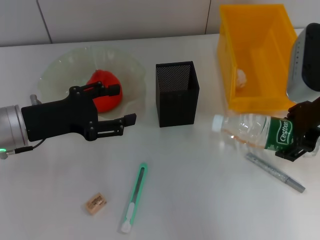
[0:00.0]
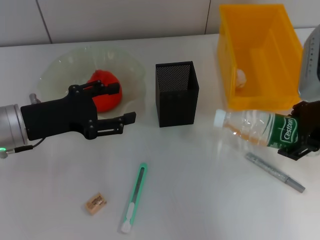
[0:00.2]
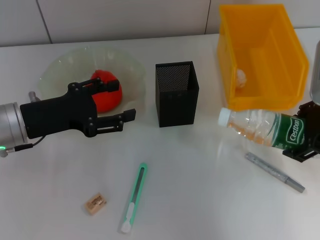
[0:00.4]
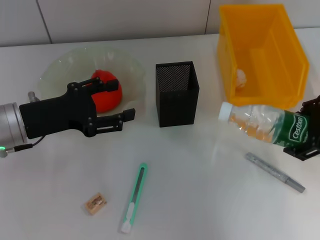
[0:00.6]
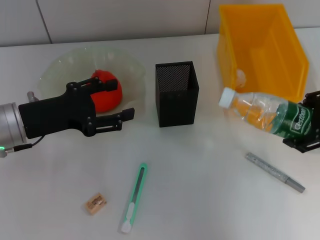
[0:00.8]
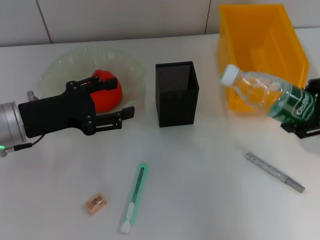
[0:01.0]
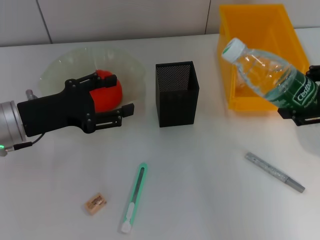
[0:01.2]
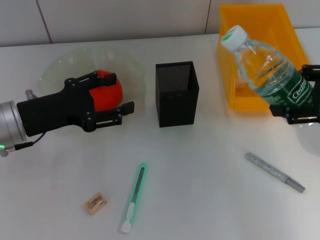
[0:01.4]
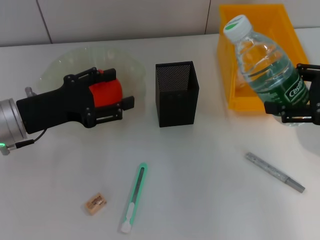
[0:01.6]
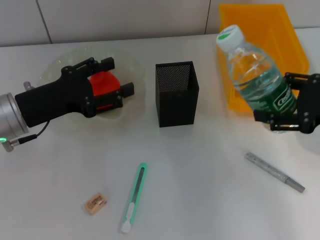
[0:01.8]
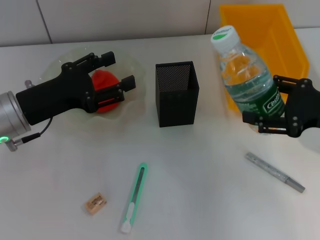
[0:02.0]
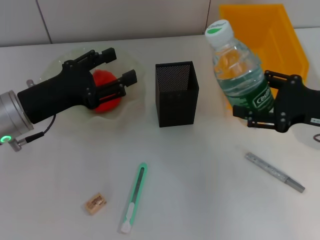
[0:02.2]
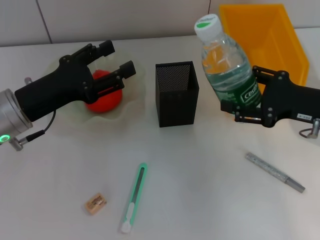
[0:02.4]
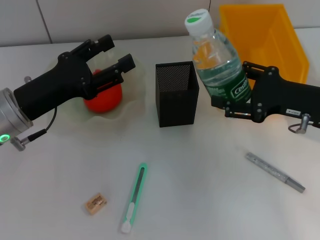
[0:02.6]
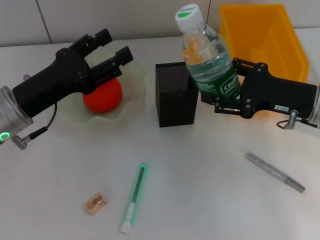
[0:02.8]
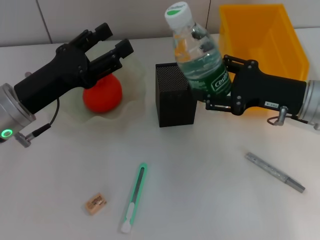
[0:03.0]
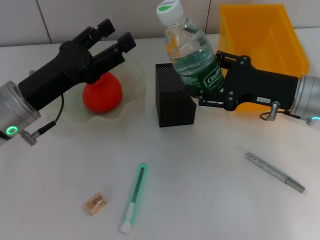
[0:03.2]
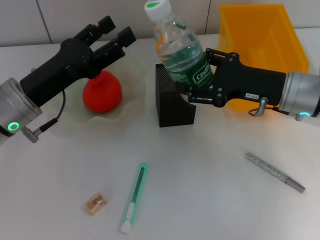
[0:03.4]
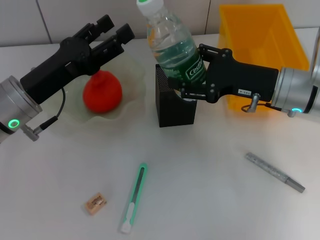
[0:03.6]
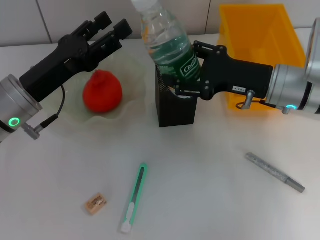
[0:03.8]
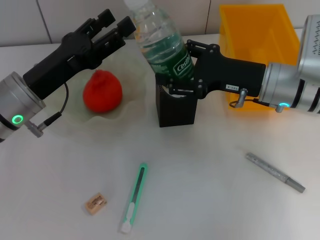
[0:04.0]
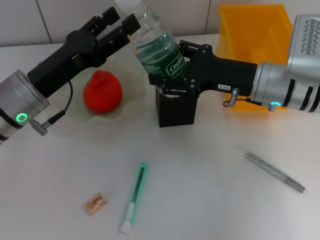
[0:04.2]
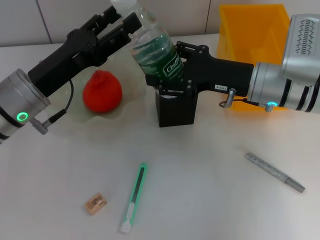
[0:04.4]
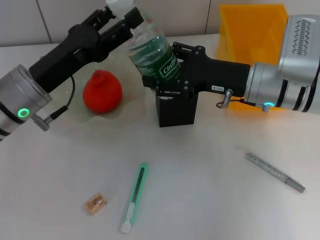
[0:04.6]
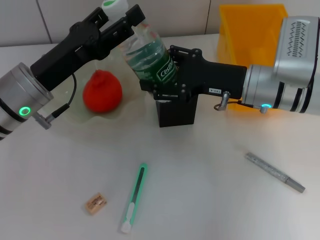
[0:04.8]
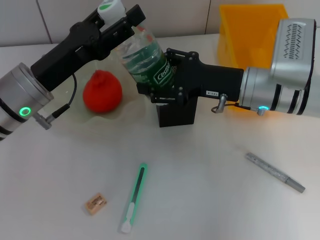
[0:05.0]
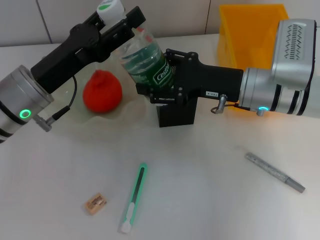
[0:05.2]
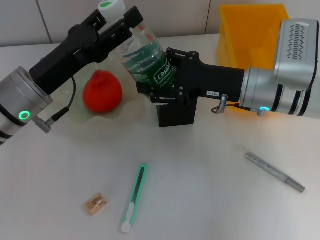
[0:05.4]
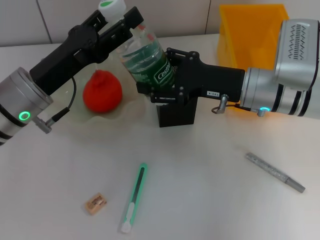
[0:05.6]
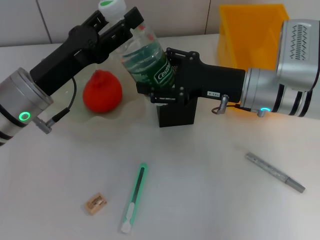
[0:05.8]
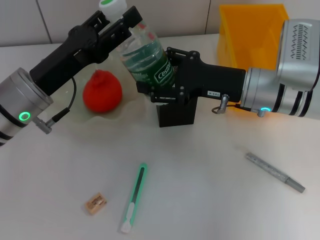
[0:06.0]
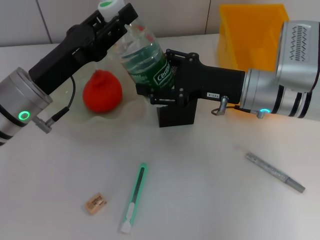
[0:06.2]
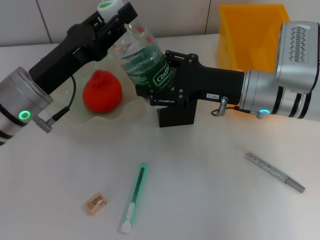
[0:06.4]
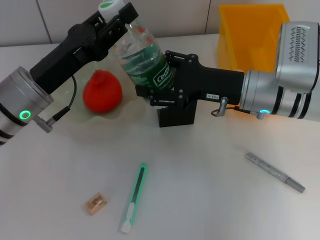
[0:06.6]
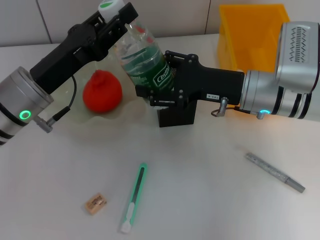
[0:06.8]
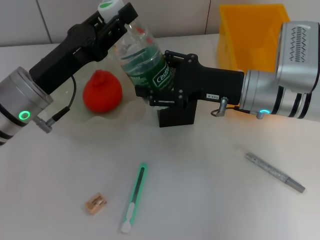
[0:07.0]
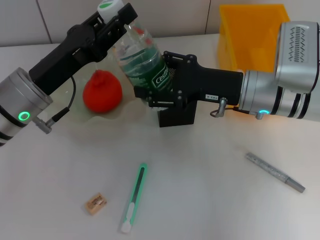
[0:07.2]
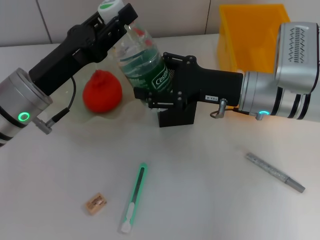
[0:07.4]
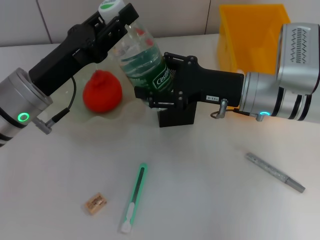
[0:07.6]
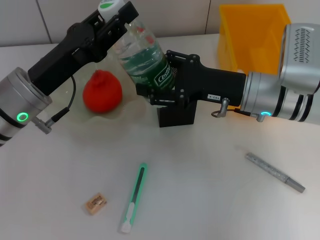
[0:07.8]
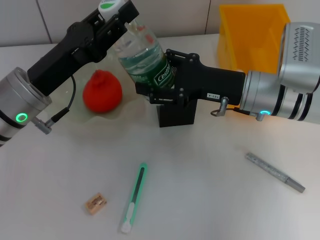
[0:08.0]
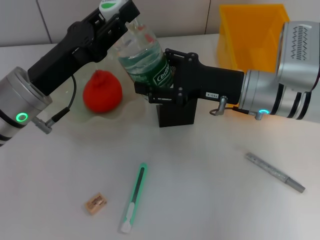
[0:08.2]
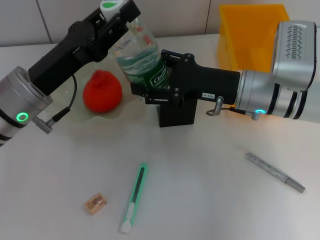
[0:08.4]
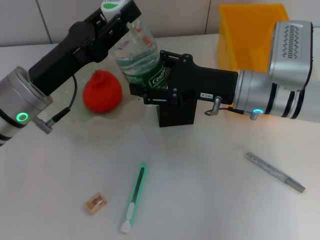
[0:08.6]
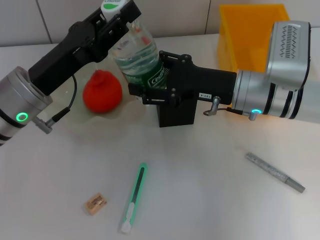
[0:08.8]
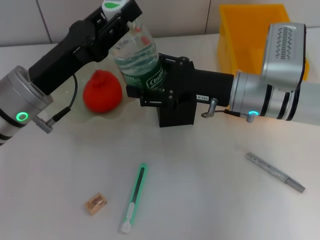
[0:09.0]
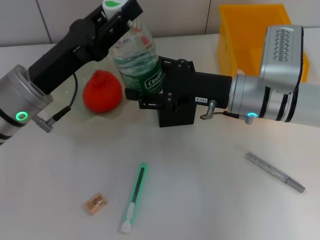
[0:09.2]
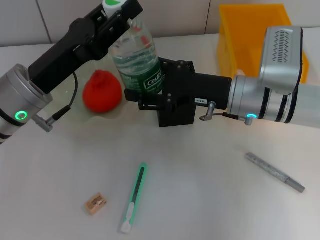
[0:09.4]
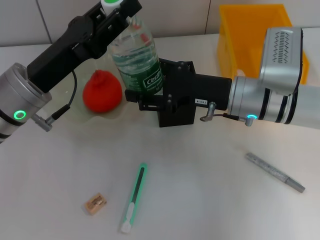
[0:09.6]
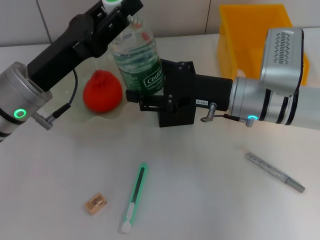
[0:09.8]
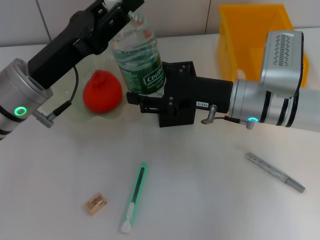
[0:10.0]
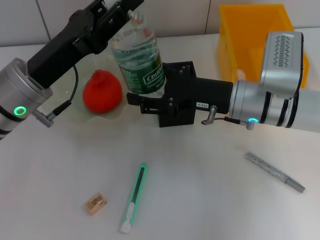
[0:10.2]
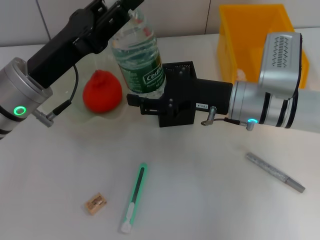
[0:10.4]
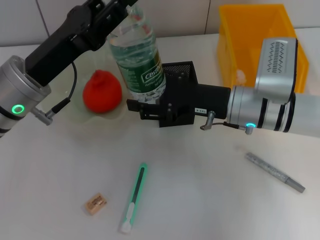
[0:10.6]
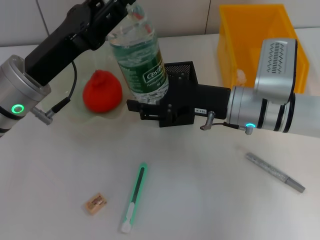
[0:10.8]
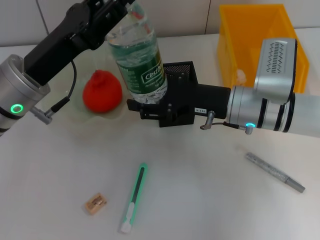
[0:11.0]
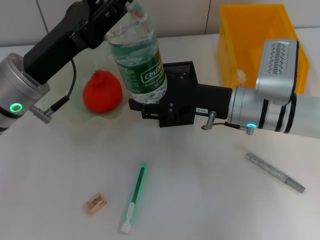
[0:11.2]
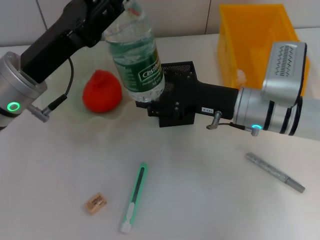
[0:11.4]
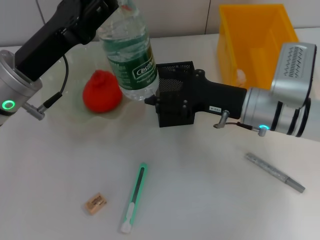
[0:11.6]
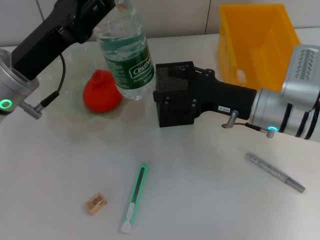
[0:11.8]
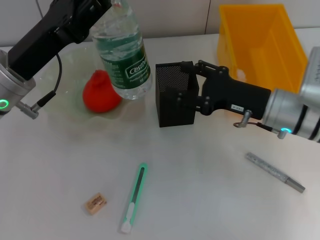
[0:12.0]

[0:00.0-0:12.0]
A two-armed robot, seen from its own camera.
Step, 0:00.0 to 0:11.4: Pass the water bottle from the right hand to the left hand.
0:00.0 to 0:01.6: The right gripper shifts approximately 10 cm to the right and backward.
0:01.6 to 0:03.0: The right gripper travels to the left, downward and forward by roughly 10 cm.
0:03.0 to 0:04.4: The right gripper shifts about 5 cm to the left.
0:04.4 to 0:06.0: Neither gripper changes place.
0:06.0 to 0:07.6: The left gripper closes.
0:07.6 to 0:09.0: Neither gripper changes place.
0:09.0 to 0:10.4: Neither gripper changes place.
0:10.4 to 0:12.0: The right gripper ends up roughly 5 cm from where it was.

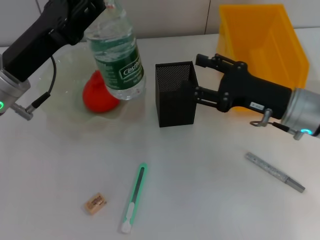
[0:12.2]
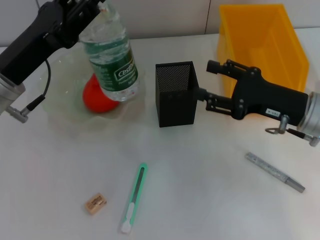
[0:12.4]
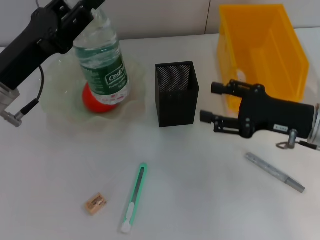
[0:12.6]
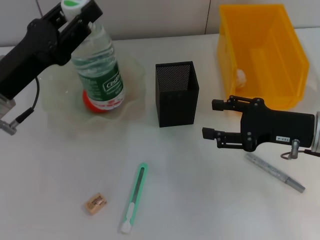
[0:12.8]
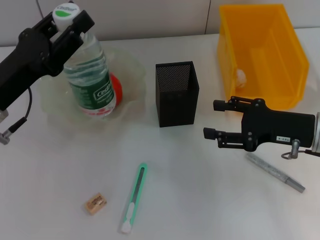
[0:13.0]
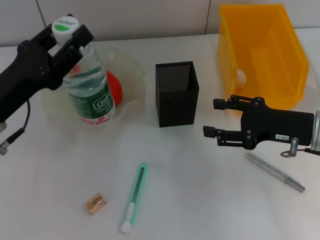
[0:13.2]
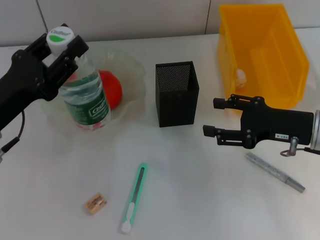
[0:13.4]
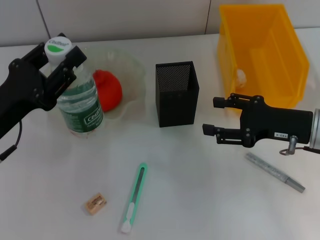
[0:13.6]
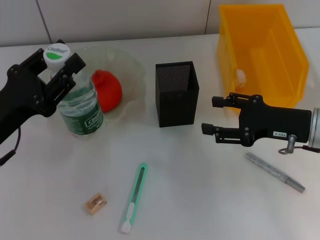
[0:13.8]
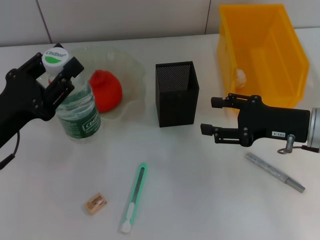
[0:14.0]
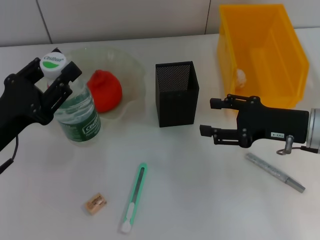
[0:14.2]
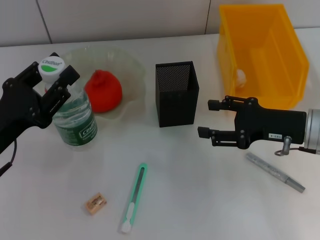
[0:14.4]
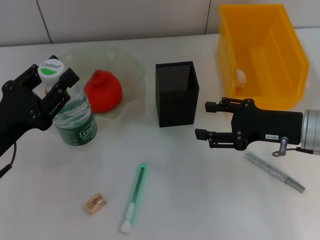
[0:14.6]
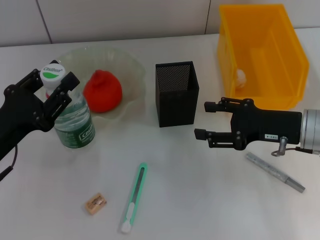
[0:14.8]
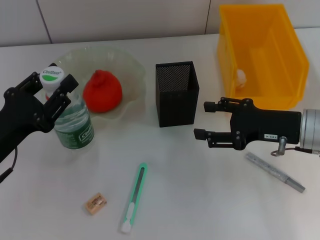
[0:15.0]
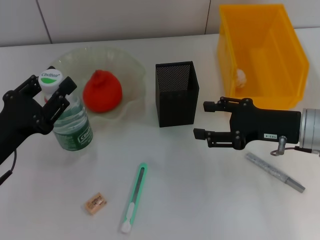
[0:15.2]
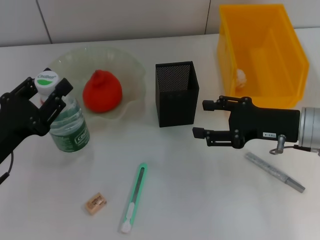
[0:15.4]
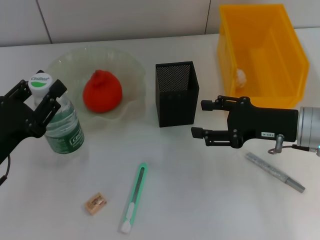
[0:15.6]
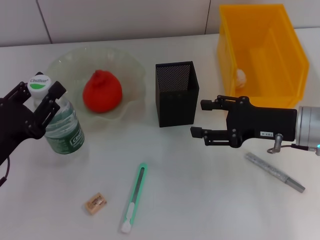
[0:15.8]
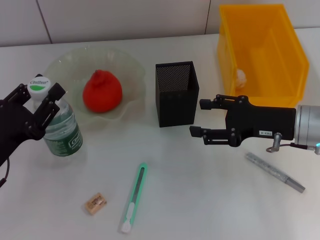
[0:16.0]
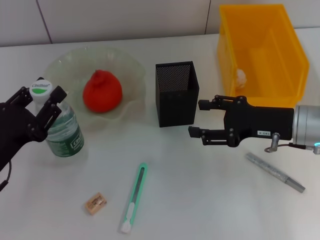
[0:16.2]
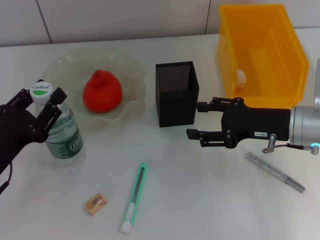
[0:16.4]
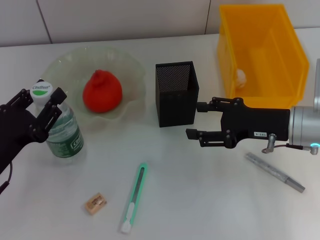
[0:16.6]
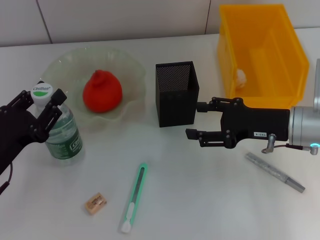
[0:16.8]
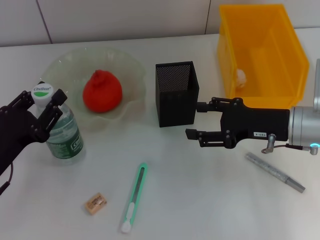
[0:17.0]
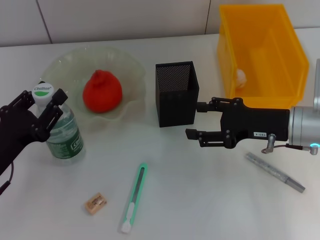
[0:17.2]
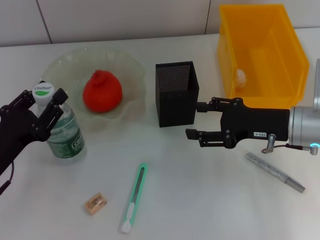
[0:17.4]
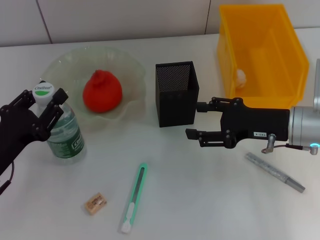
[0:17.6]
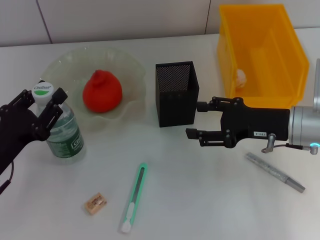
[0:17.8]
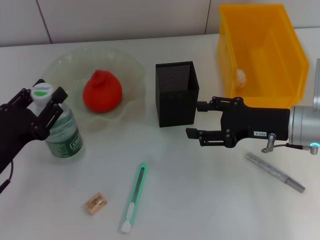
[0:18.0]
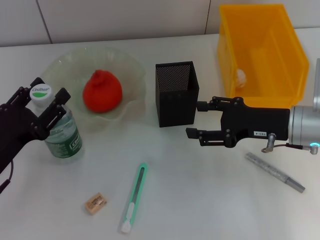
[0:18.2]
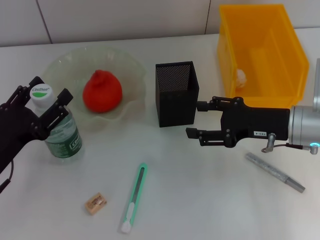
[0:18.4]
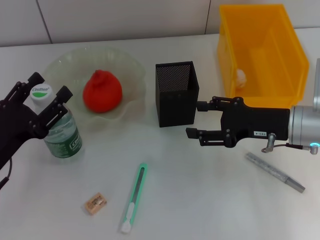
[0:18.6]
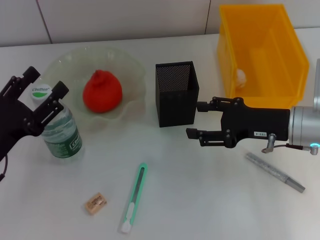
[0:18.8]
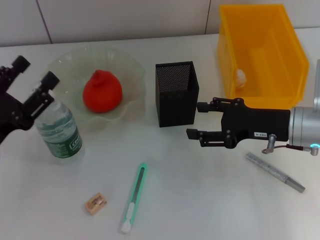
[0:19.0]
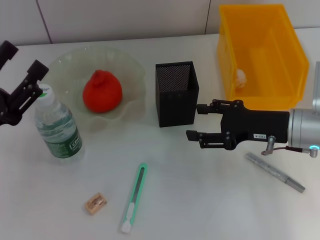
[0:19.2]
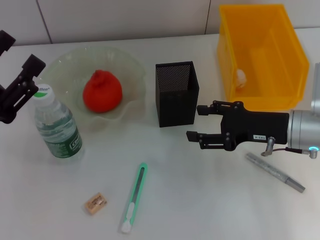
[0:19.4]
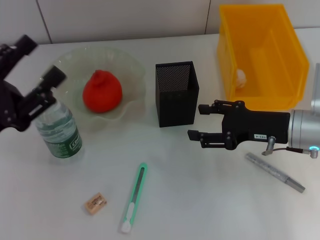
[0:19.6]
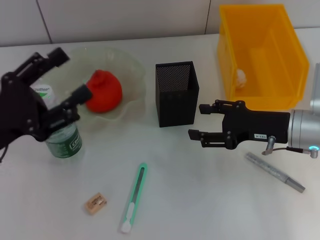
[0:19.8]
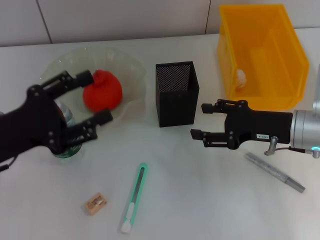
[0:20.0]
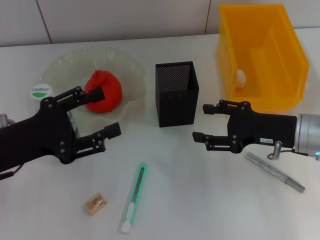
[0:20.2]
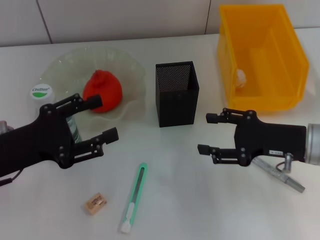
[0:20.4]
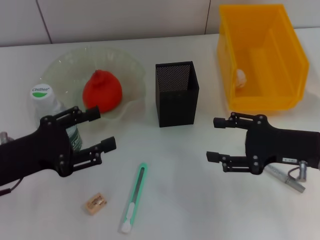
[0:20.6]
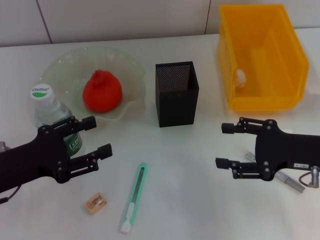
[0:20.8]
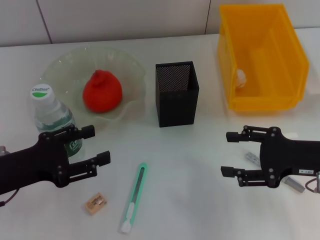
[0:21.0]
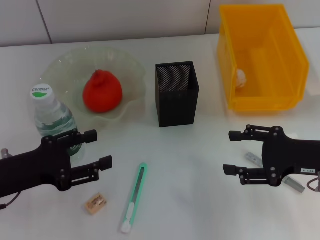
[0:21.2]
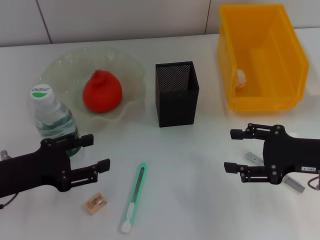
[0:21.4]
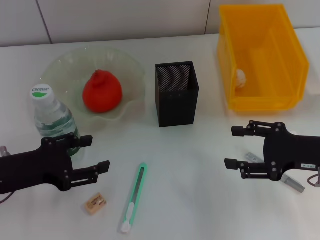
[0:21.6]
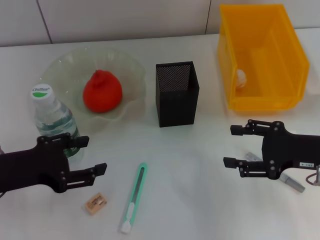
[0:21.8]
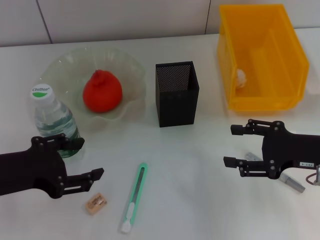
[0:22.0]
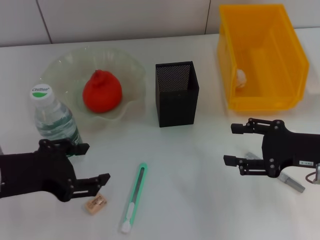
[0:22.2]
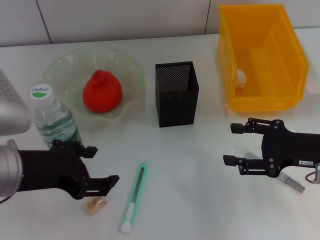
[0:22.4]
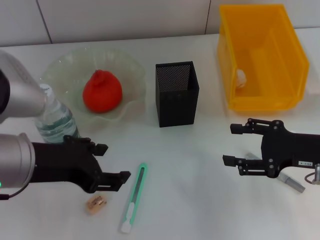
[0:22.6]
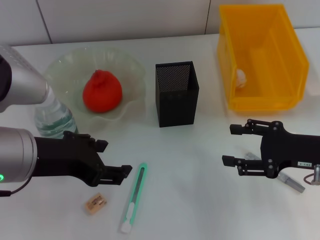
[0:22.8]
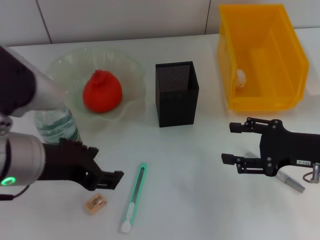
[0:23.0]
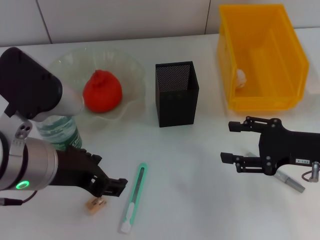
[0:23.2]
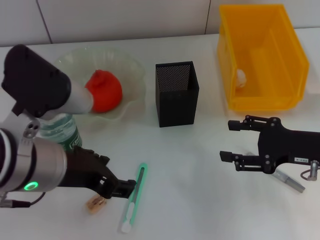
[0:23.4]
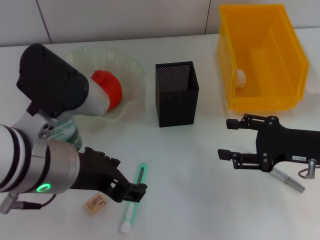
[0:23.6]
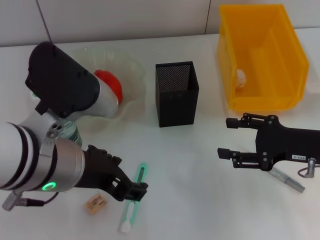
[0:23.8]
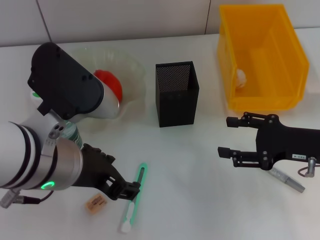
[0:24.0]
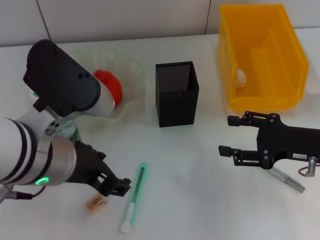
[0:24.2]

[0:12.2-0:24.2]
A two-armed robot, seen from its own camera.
Step, 0:12.2 to 0:19.0: Place the water bottle on the table with the left hand.
0:12.2 to 0:13.8: The left gripper goes approximately 5 cm backward.
0:13.8 to 0:16.6: The grippers move only a little.
0:16.6 to 0:18.2: The two grippers keep their place.
0:18.2 to 0:19.8: The left gripper is displaced upward by roughly 5 cm.
0:19.8 to 0:21.2: The right gripper heads backward, covering roughly 5 cm.
0:21.2 to 0:22.6: The left gripper travels upward and to the right by some 15 cm.
0:22.6 to 0:24.2: The left gripper shifts some 5 cm to the right.
